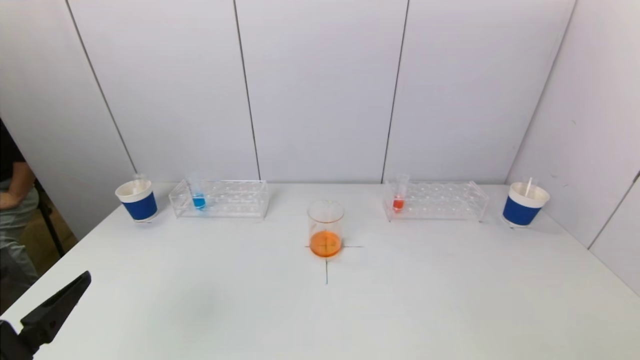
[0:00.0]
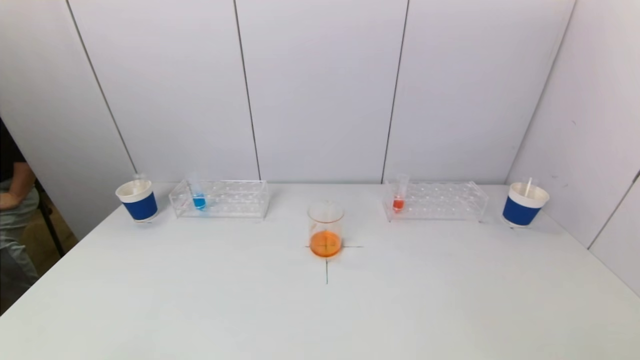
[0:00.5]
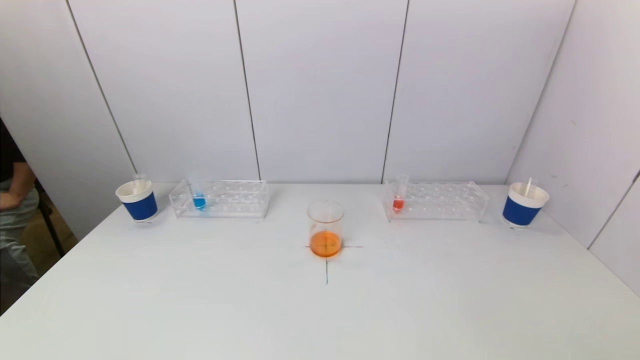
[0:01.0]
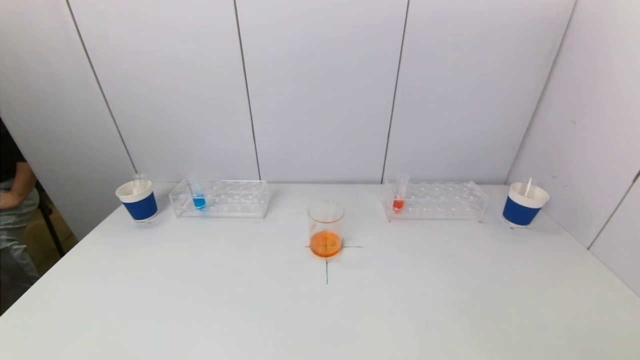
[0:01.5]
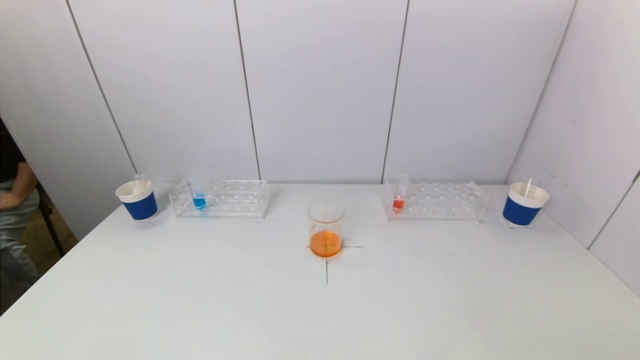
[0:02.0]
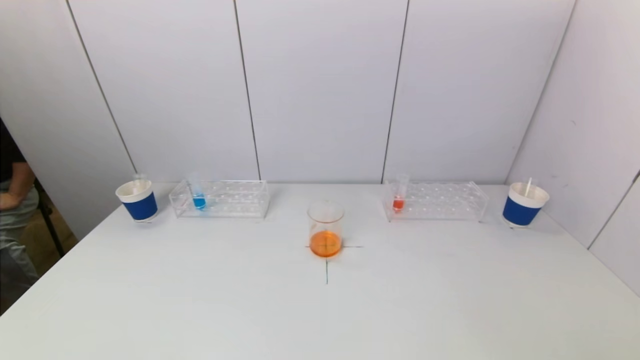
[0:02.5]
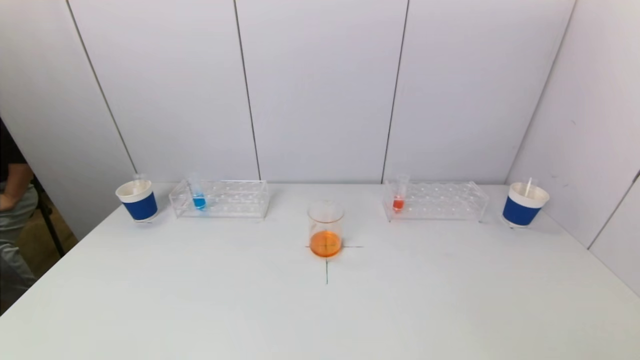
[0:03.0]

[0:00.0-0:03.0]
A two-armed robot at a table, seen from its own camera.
Task of the whole recording: pick up a test tube with pigment on left test tube rack and a test tube with pigment on right test tube rack by grippers and pour them into the beaker.
0:00.0 to 0:01.5: The left gripper is displaced downward and backward by some 10 cm.
0:01.5 to 0:03.0: The two grippers keep their place.

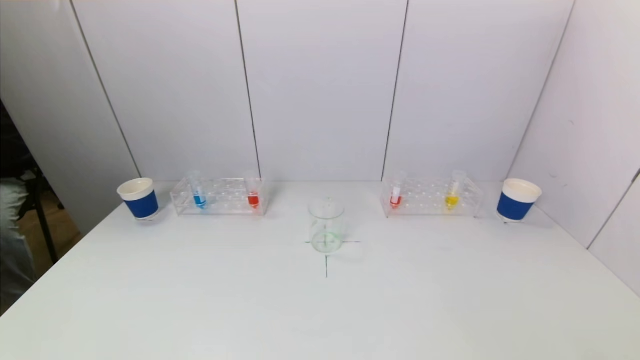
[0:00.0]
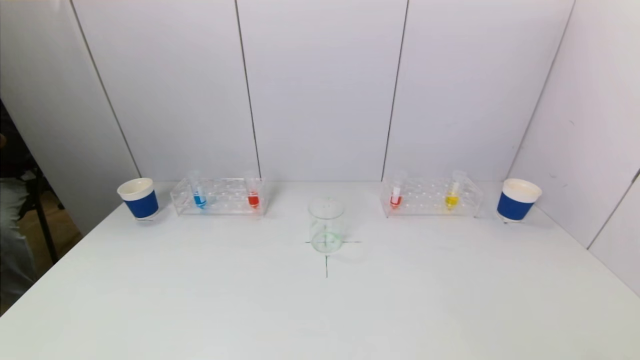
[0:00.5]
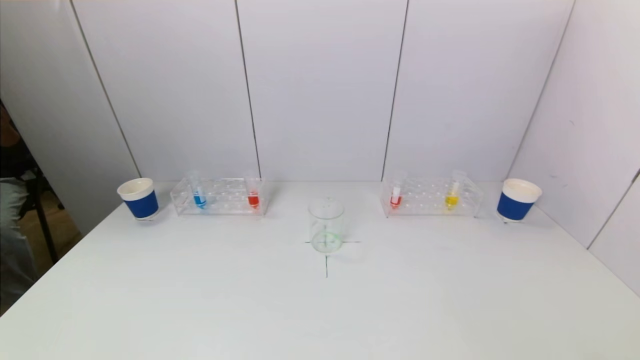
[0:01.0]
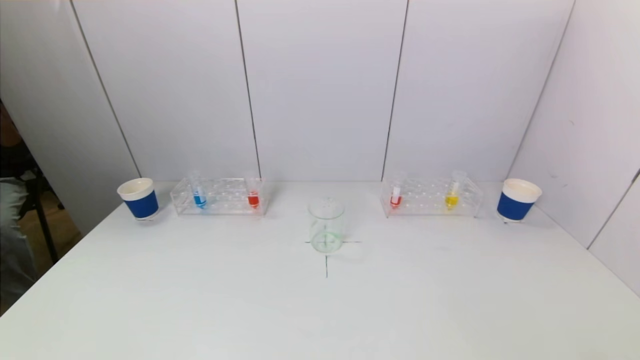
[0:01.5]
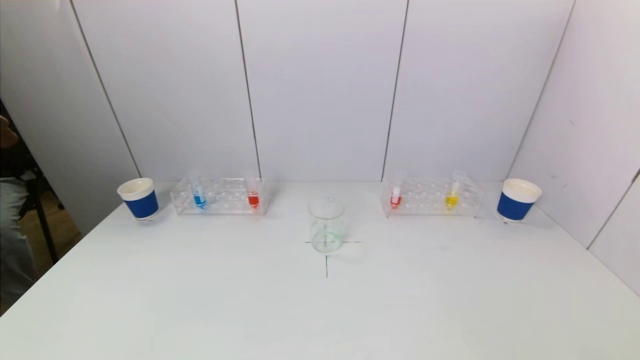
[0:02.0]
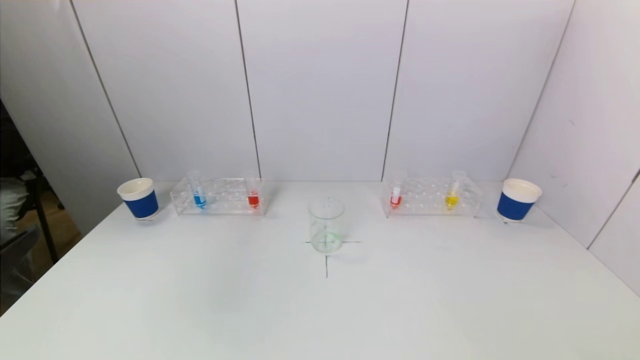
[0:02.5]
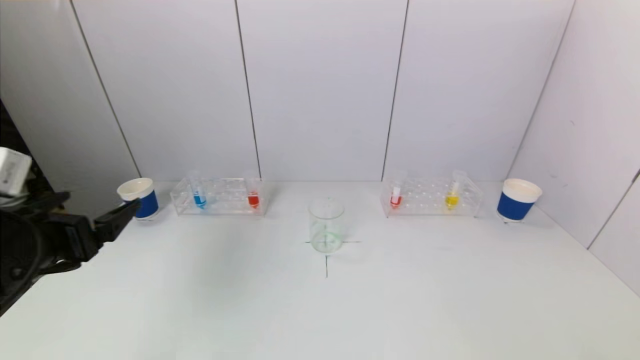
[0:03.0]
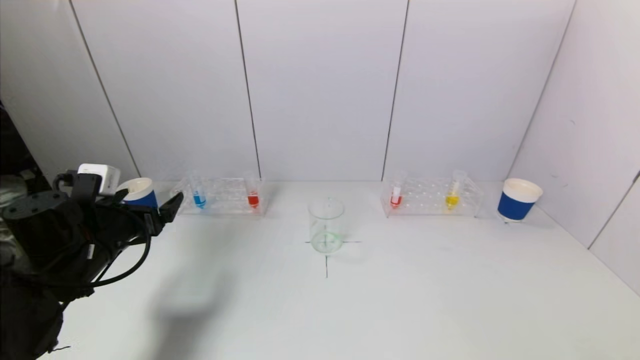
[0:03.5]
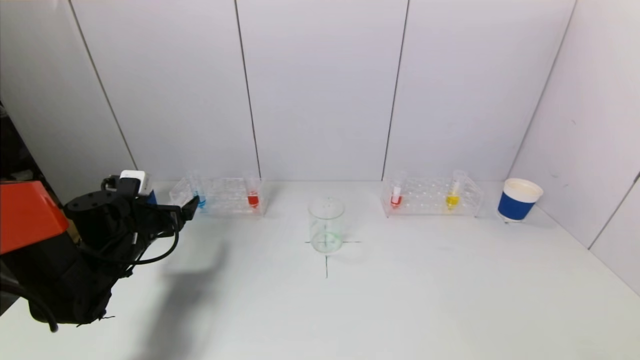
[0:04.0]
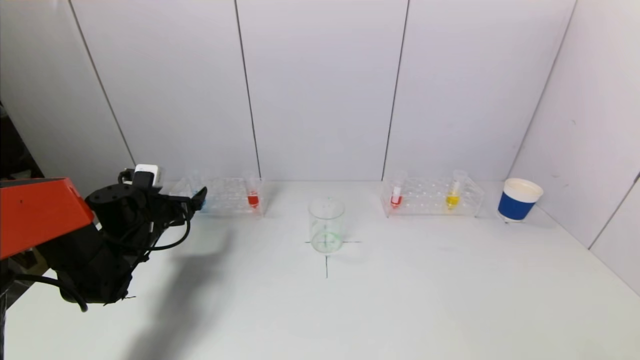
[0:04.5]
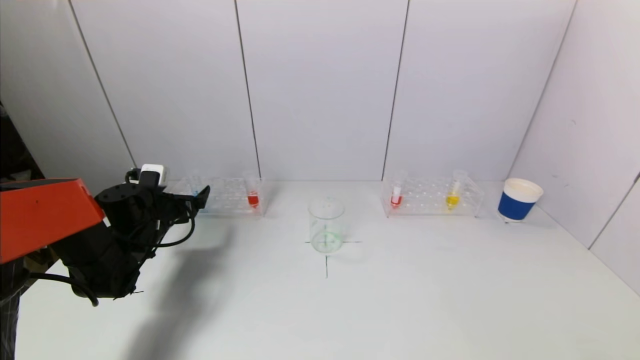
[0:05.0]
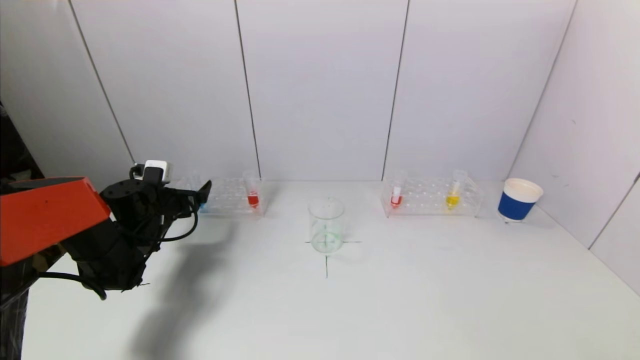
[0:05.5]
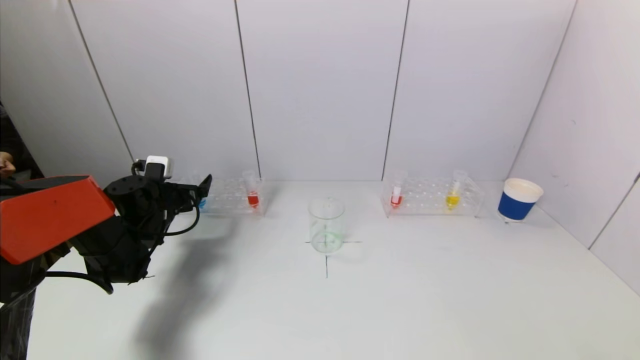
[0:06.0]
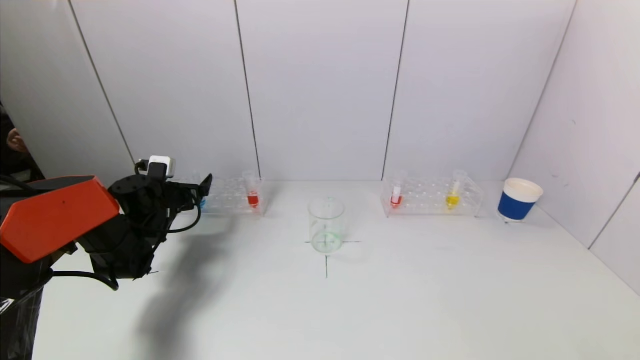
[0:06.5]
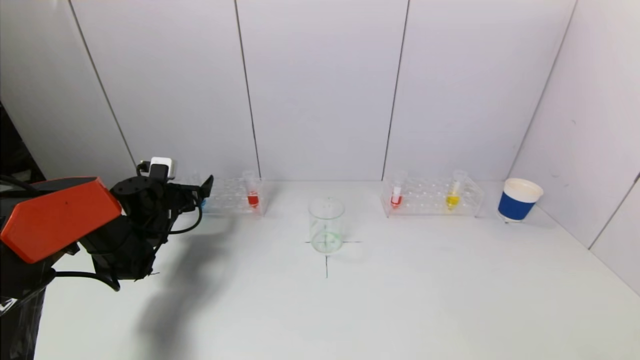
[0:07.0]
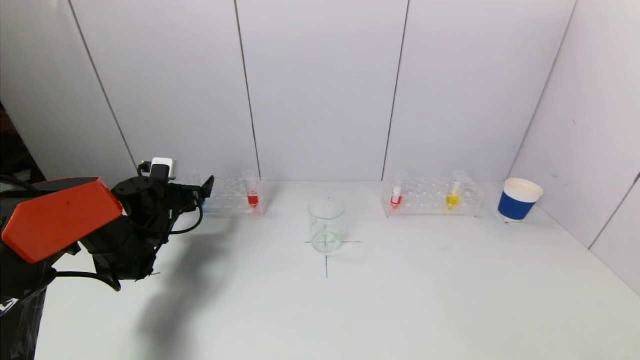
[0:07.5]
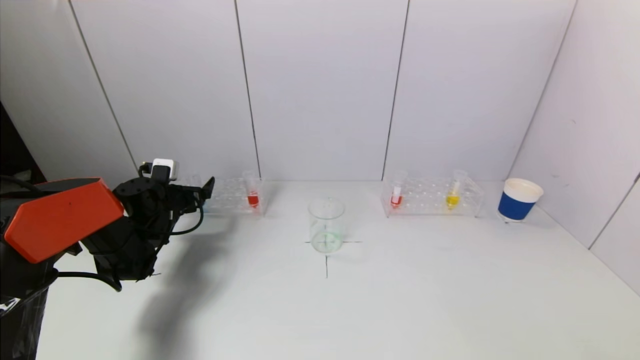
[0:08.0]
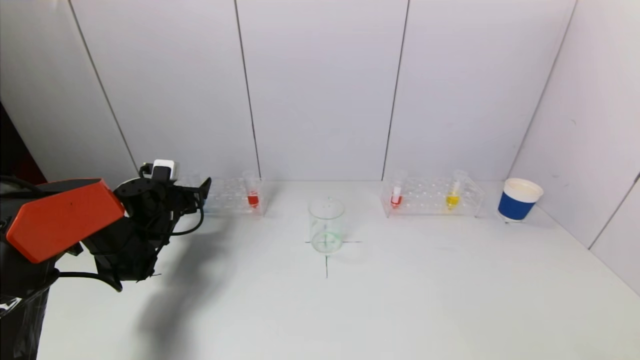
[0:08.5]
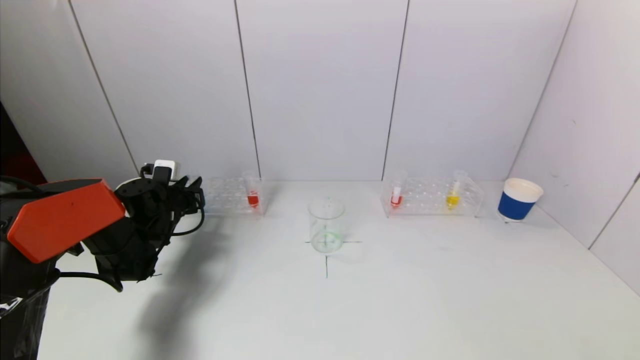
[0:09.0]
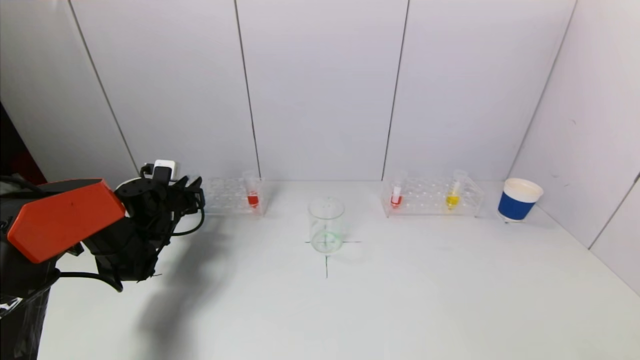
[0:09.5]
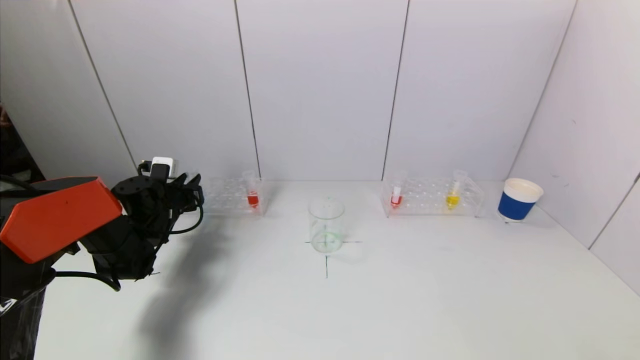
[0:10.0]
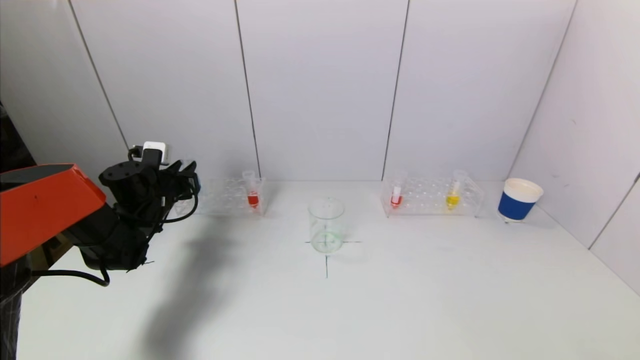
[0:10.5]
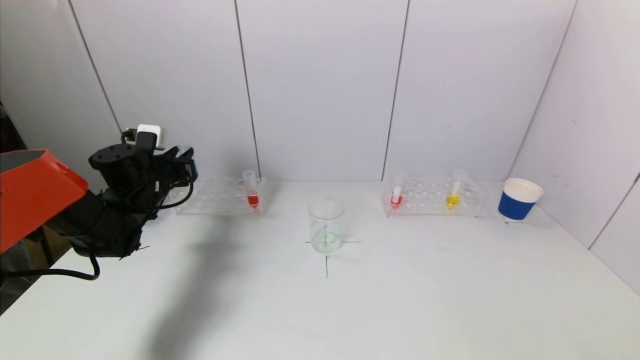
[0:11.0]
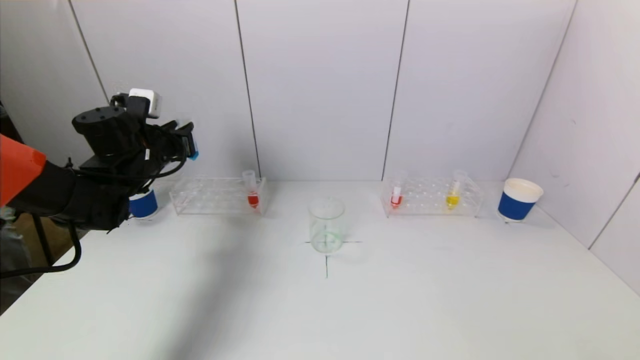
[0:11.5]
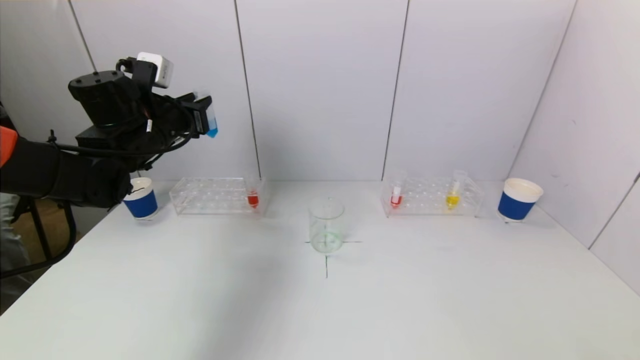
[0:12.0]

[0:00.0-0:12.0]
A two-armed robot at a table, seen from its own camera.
Task of the whole recording: pick up a test tube with pigment on left test tube rack and a test tube with pigment on right test tube rack by grippers and pour them into the beaker.
Step, 0:00.0 to 0:09.5: Grasp the blue reagent with the left gripper.
0:02.0 to 0:04.0: The left gripper moves forward, some 35 cm.
0:04.0 to 0:06.0: The left gripper goes about 10 cm forward.
0:06.0 to 0:08.0: The grippers move only a little.
0:08.0 to 0:10.0: The left gripper closes up.
0:10.0 to 0:12.0: The left gripper heads upward, covering some 20 cm.

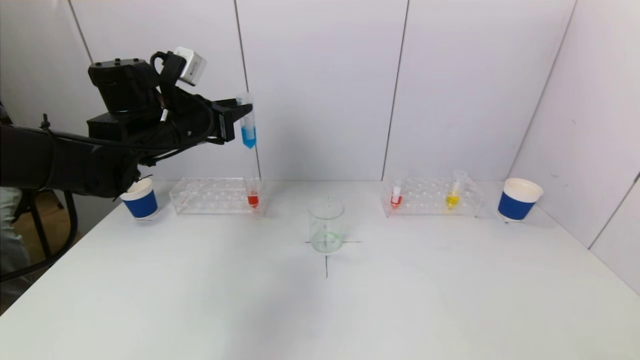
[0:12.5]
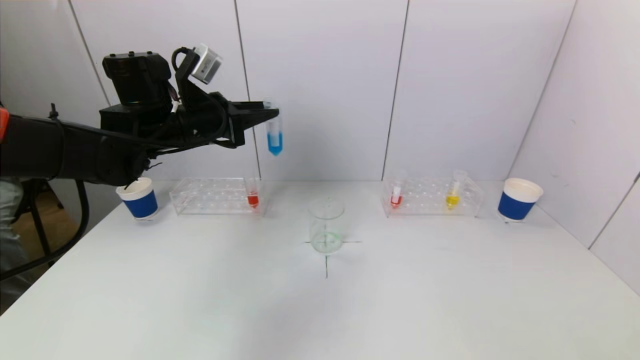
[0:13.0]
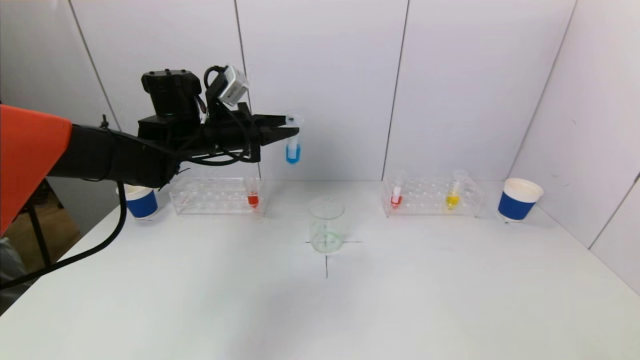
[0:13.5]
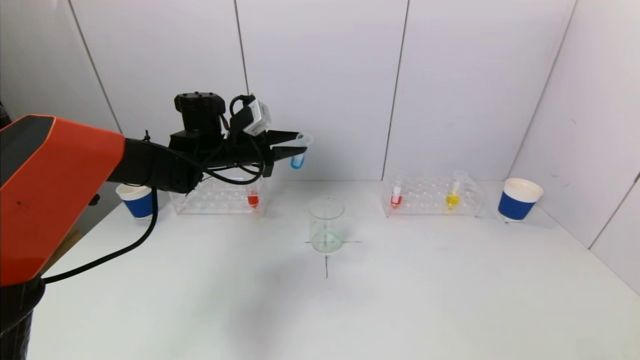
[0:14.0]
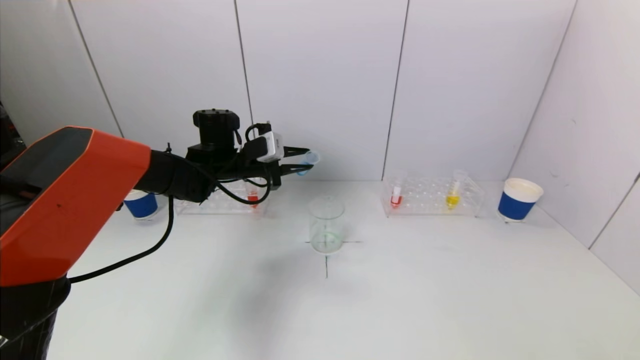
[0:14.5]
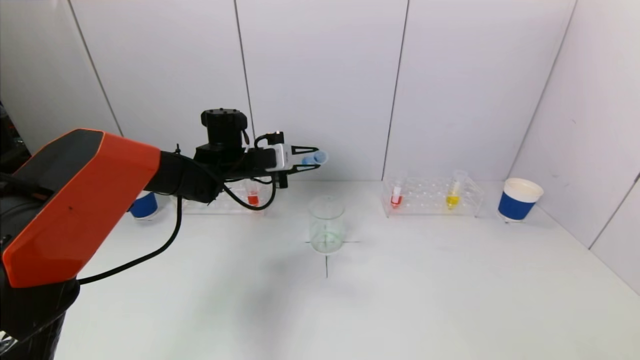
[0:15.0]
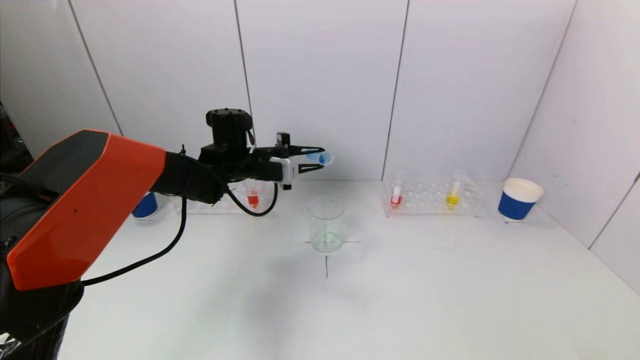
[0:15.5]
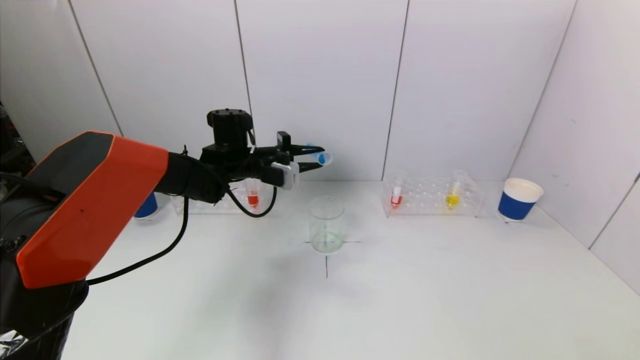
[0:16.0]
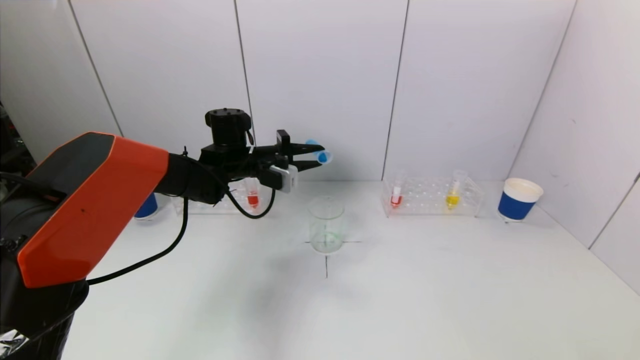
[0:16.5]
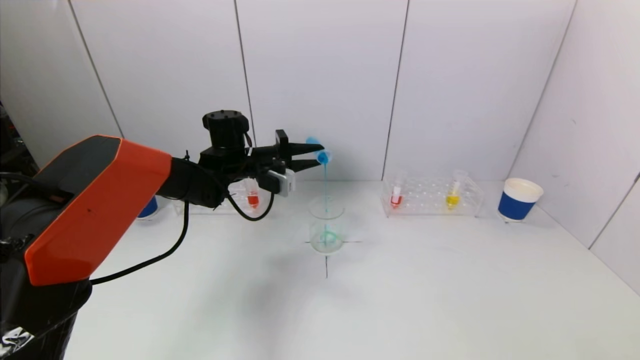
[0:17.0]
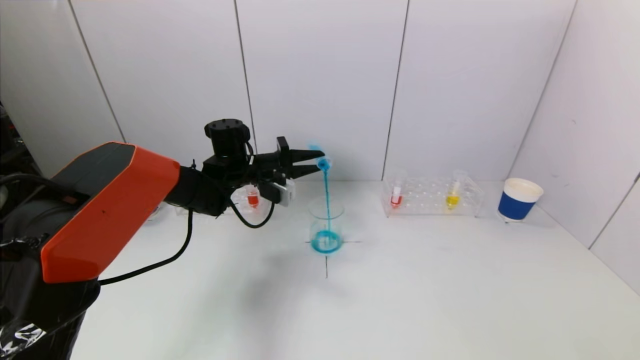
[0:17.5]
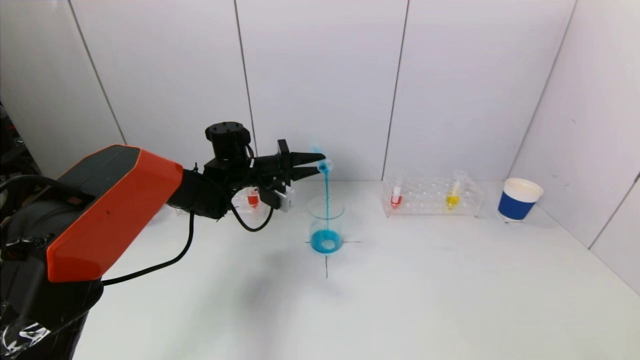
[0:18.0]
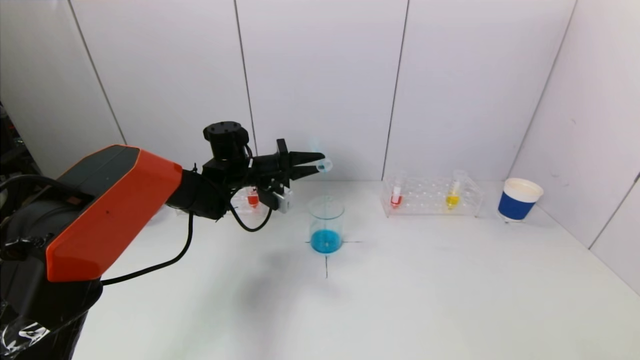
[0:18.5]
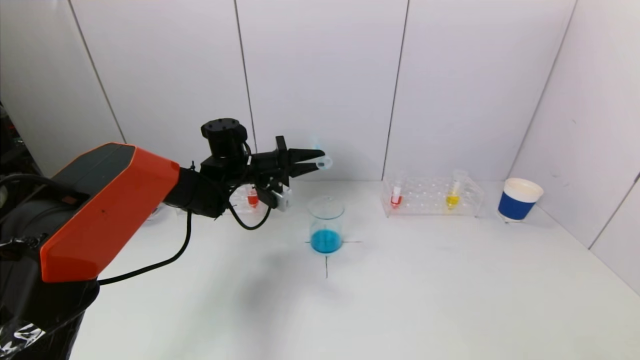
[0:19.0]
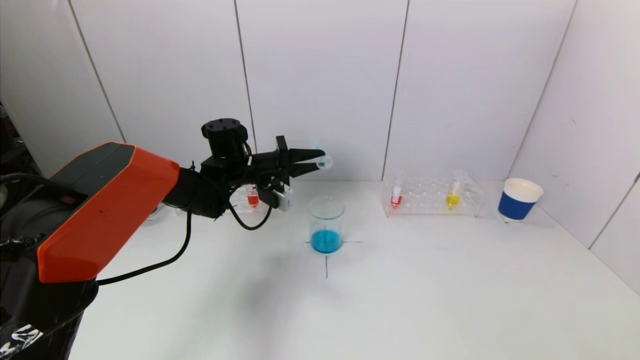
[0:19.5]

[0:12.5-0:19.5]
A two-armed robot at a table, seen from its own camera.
Task of the whole recording: pick up a test tube with pigment on left test tube rack and a test tube with pigment on right test tube rack by grippers and pour them into the beaker.
0:12.5 to 0:14.5: The left gripper moves downward, forward and to the right, roughly 15 cm.
0:16.0 to 0:17.5: The grippers make only small movements.
0:17.5 to 0:19.5: There are only small adjustments of the grippers.
